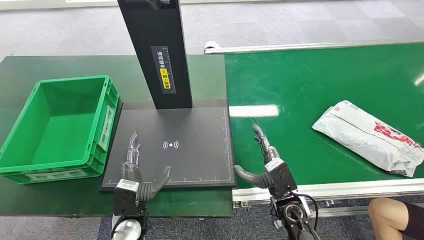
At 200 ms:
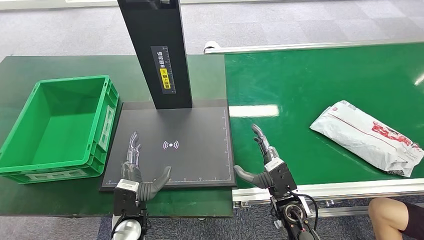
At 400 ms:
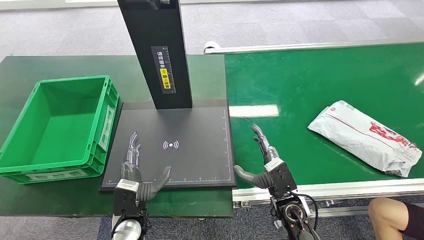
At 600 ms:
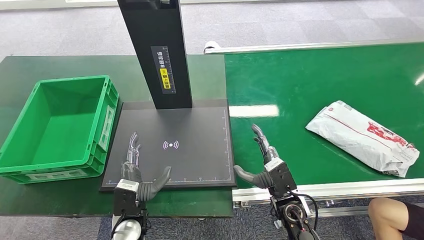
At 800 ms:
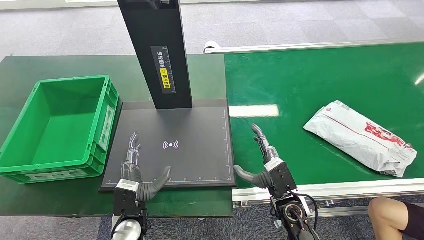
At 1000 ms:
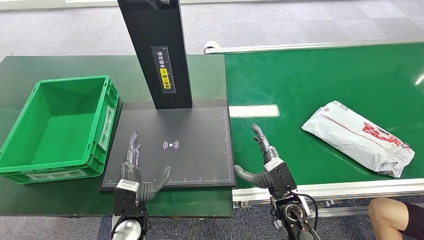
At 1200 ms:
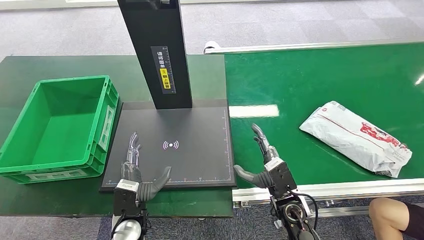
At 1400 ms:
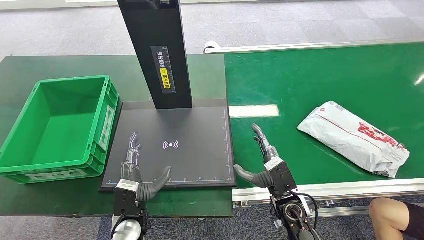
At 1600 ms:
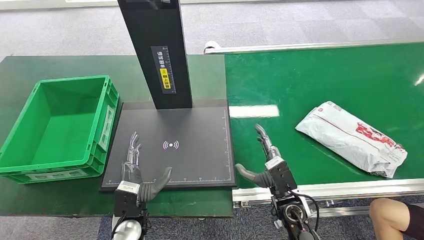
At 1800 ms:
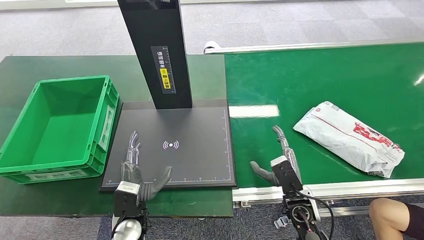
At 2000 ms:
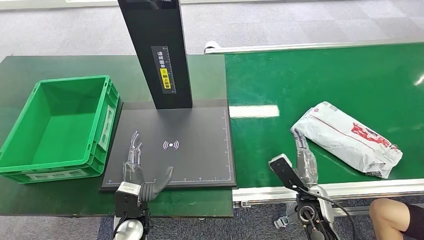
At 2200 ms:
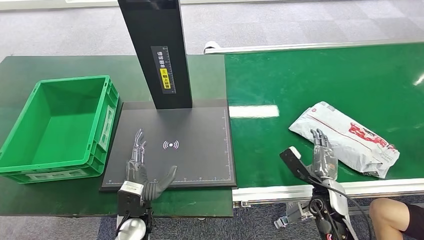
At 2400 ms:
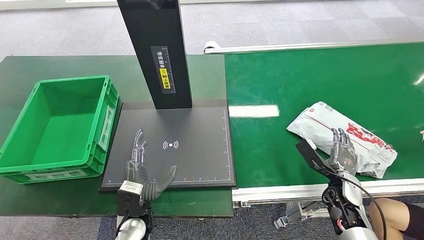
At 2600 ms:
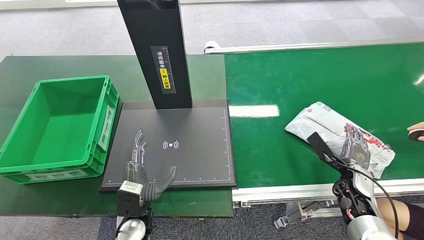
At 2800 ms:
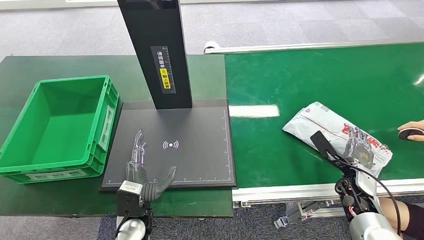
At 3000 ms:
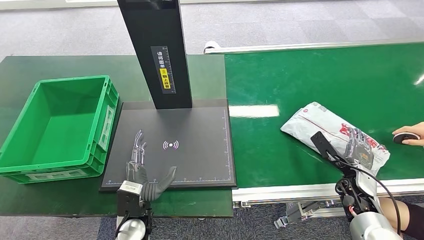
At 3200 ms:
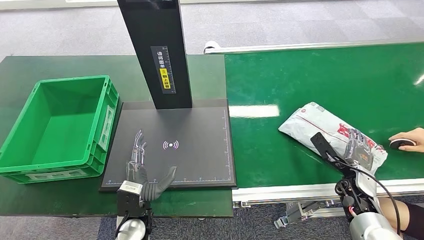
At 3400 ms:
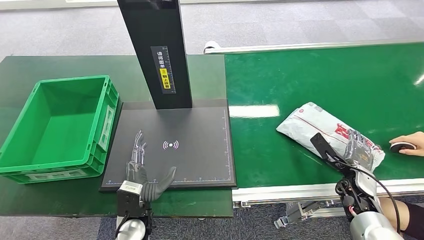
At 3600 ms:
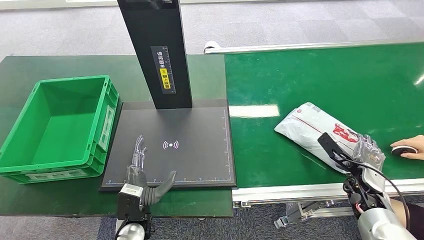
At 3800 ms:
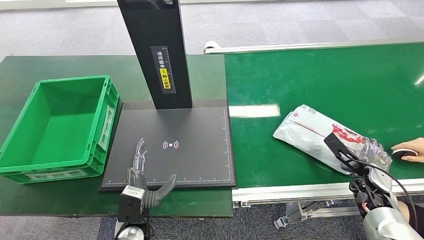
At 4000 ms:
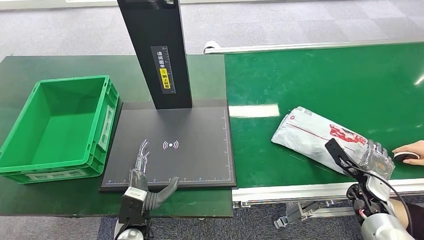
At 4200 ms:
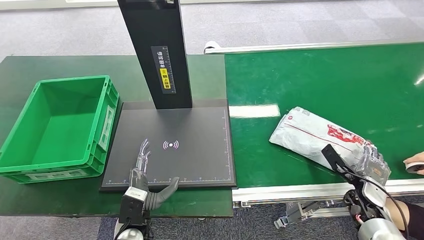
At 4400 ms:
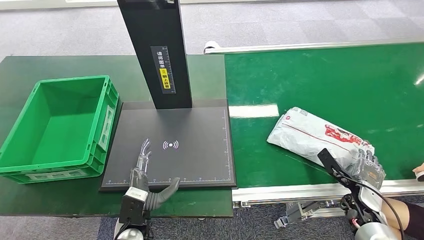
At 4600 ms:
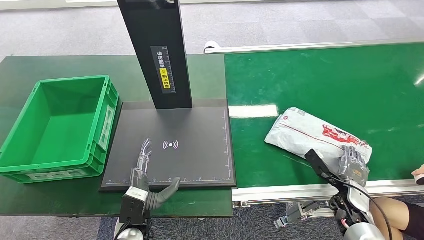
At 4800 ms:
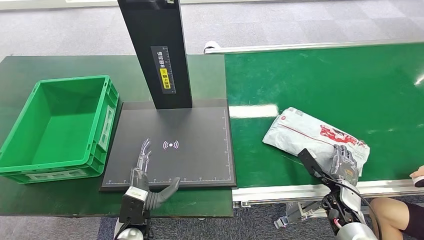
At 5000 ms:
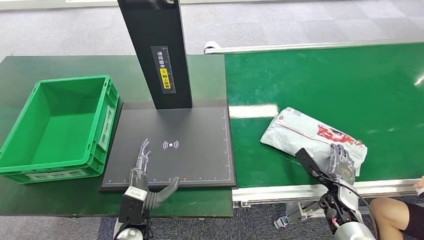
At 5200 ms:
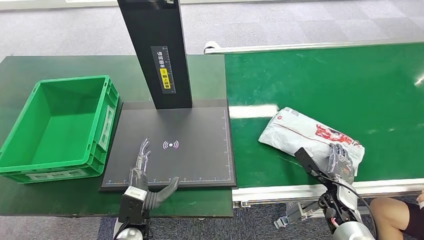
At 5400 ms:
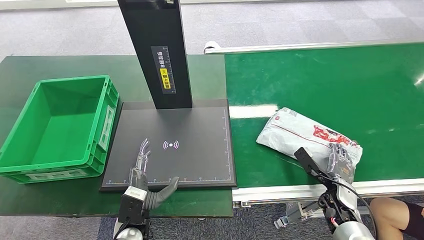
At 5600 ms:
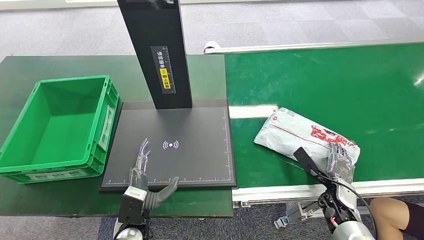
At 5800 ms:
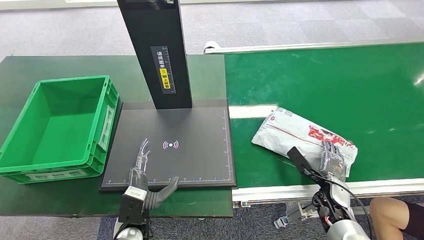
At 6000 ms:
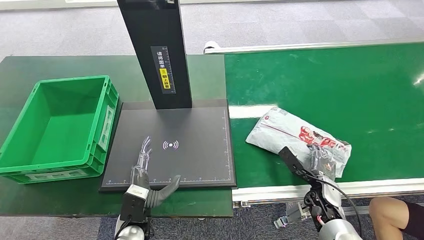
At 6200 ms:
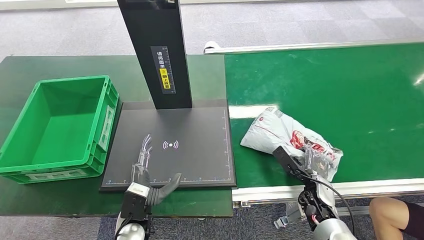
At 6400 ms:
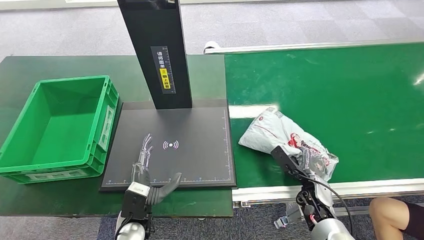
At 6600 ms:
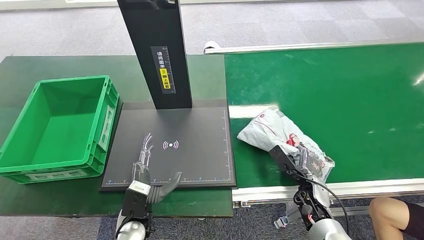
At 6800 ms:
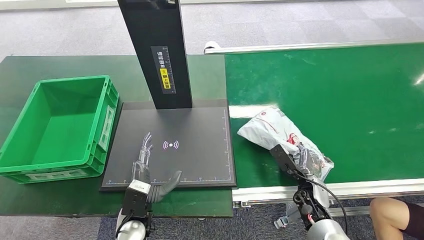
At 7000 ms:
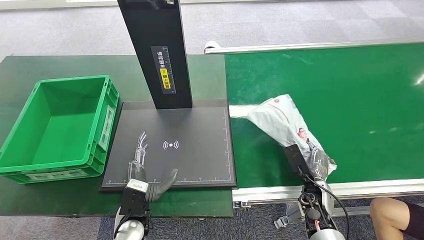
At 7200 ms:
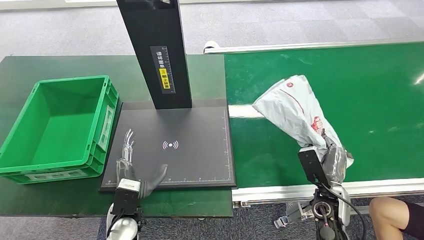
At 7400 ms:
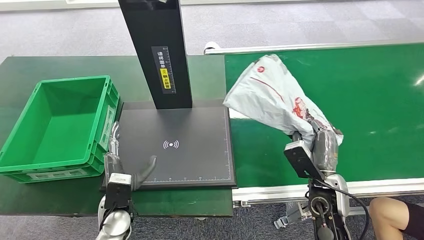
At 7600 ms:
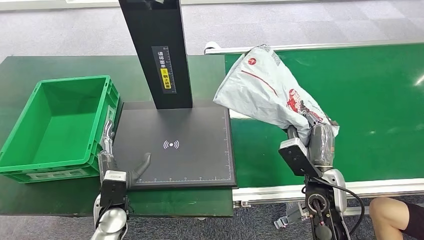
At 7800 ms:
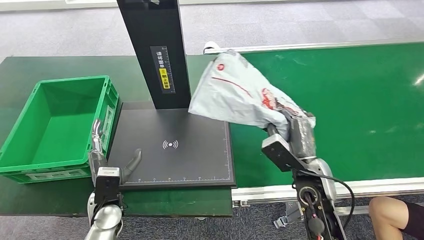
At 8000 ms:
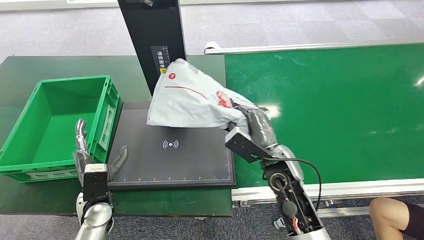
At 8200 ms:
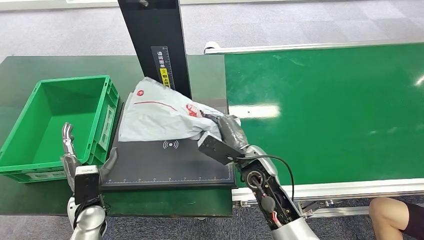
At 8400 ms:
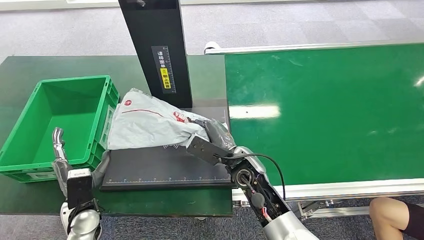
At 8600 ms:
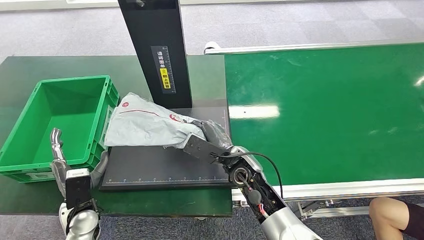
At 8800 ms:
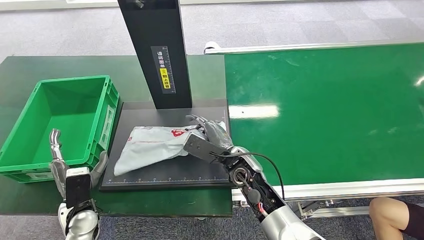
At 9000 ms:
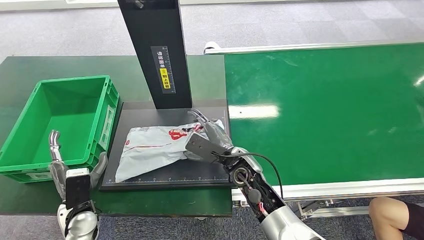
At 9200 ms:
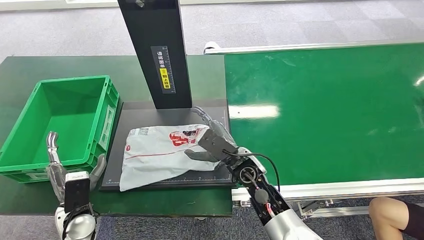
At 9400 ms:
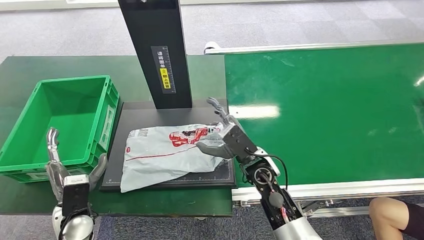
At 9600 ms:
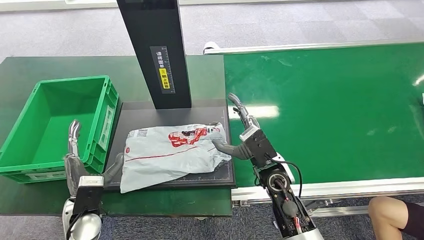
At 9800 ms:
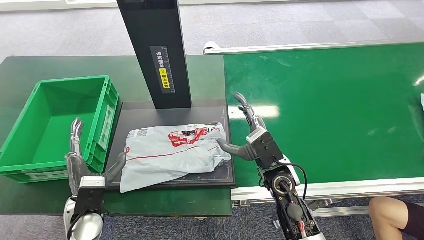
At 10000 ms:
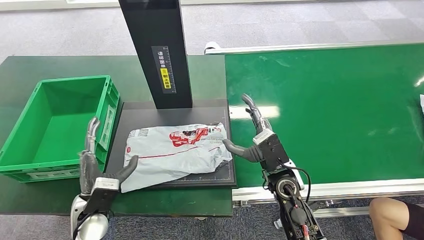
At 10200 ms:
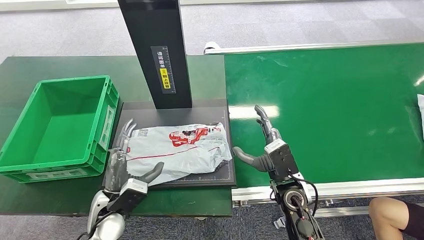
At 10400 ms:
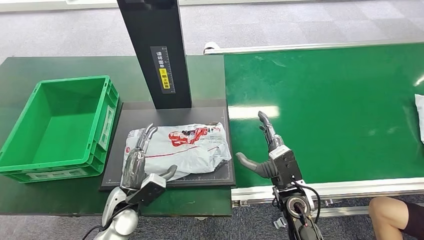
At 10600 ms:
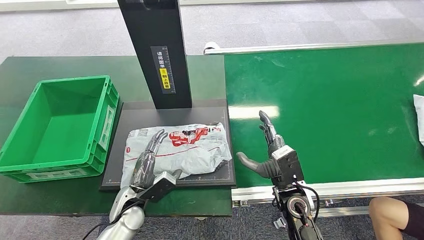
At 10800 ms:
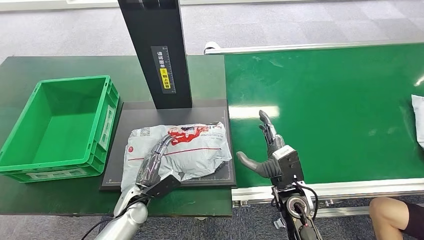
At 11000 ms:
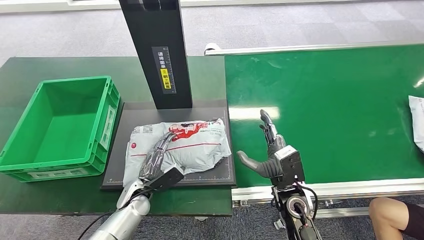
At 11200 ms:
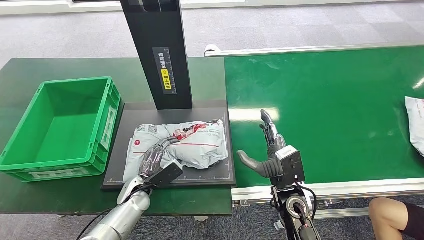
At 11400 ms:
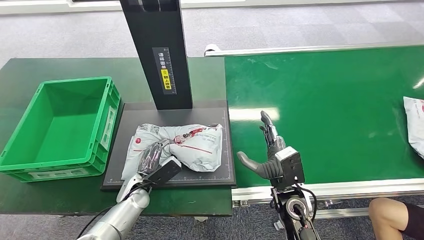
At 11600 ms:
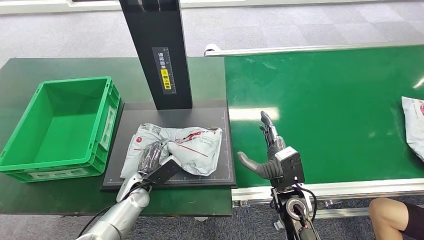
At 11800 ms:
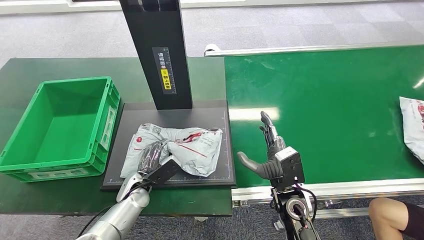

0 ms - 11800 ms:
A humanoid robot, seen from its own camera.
Step, 0 ms - 7200 ms: Pick up the package from the conveyor belt.
Step, 7600 ms - 9400 ms: Place the package onto the inbound machine.
1400 ms - 3000 ms: The right hand shifts roughly 20 cm to the right.
3000 ms - 4400 ms: The right hand ends up roughly 5 cm from where it was.
4400 ms - 6000 ms: The right hand is displaced to the left by roughly 10 cm.
6000 ms - 7400 ms: The right hand goes some 15 cm upward and to the left, while the left hand changes place by approximately 5 cm.
8800 ms - 10400 ms: The left hand is displaced to the right by approximately 10 cm. Meanwhile the right hand is displaced to the right and backward by about 15 cm.
10400 ms - 11800 ms: The left hand is displaced forward and downward by approximately 10 cm.

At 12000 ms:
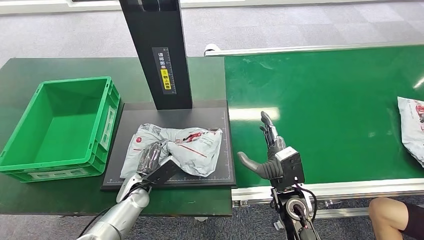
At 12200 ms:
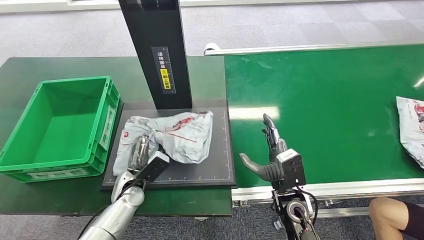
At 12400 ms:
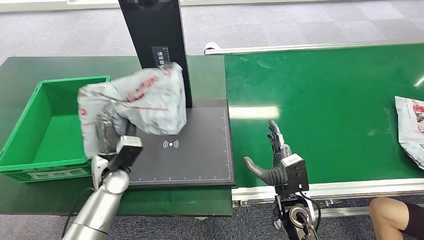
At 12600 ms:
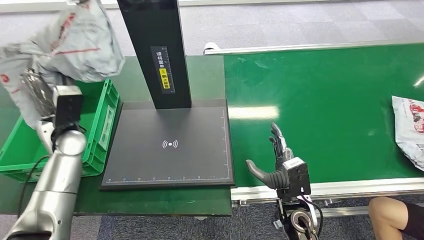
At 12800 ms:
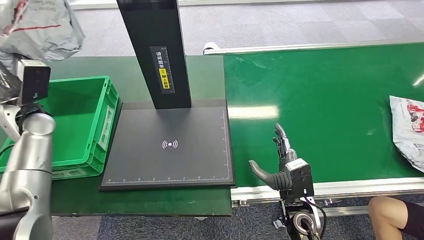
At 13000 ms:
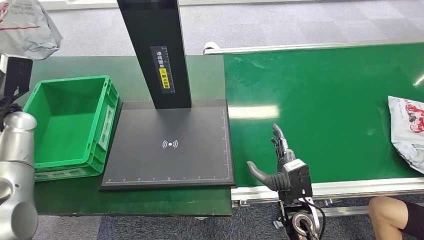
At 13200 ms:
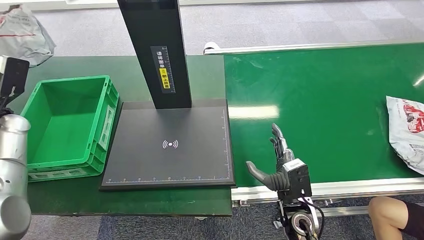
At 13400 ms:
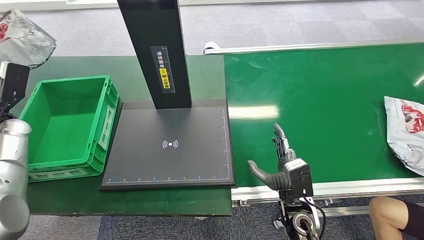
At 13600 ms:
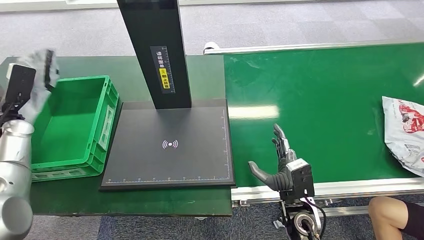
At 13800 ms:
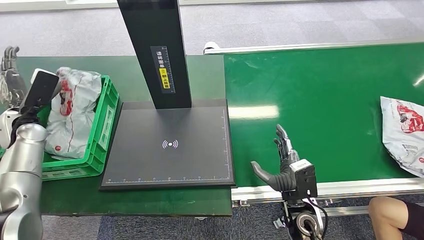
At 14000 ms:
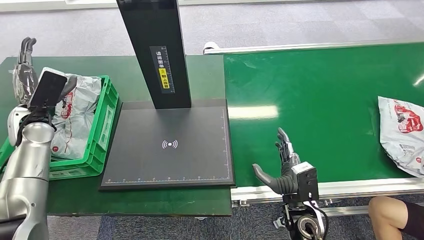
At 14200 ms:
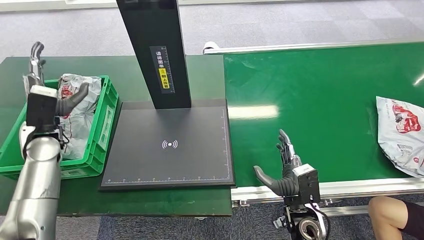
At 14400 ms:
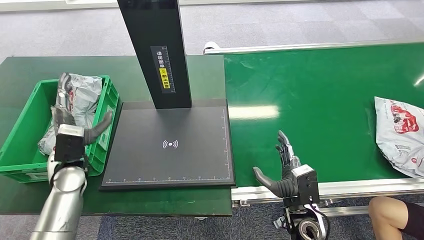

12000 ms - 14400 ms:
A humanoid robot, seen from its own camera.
Step, 12000 ms - 13000 ms: Pick up the package from the inbound machine.
Step, 13200 ms - 14400 ms: Place the package into the parcel locker.
13200 ms - 14400 ms: The left hand heads to the right, downward and backward, covering about 20 cm.
